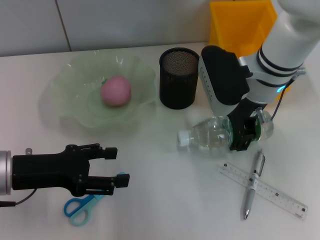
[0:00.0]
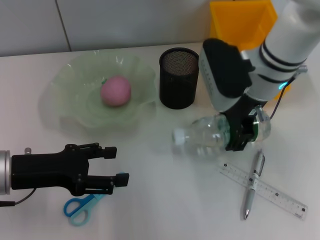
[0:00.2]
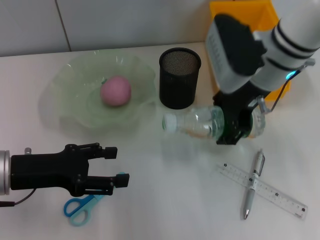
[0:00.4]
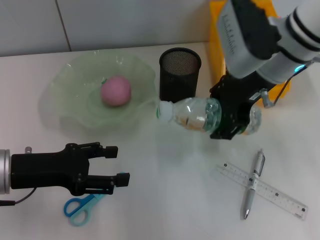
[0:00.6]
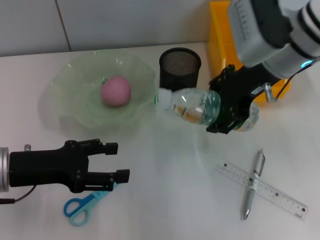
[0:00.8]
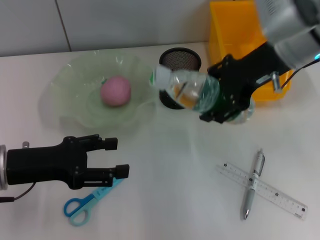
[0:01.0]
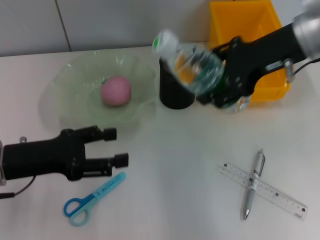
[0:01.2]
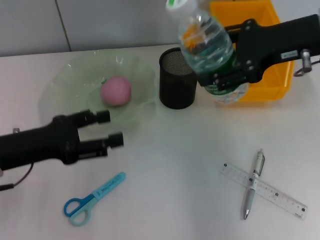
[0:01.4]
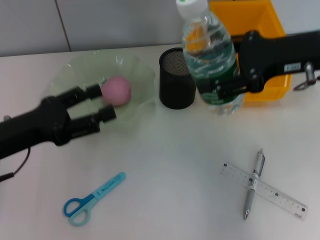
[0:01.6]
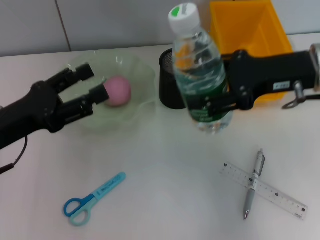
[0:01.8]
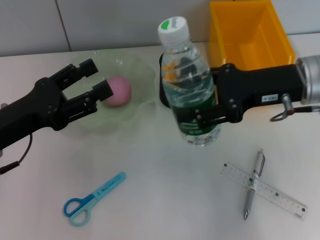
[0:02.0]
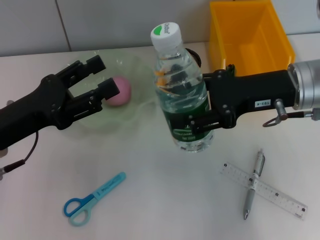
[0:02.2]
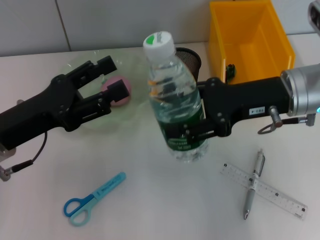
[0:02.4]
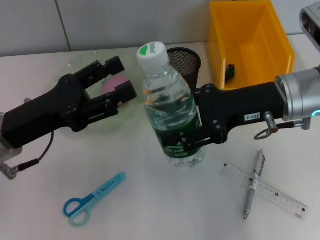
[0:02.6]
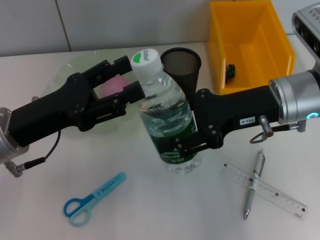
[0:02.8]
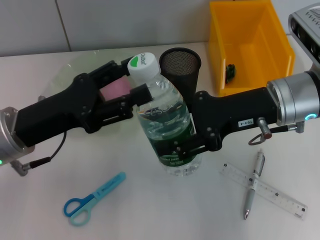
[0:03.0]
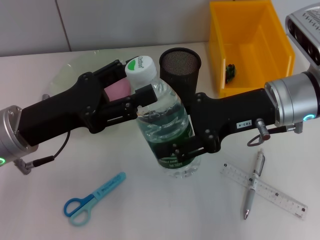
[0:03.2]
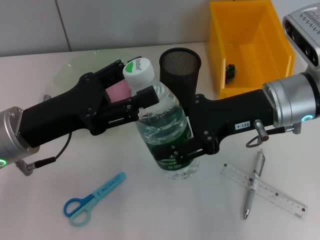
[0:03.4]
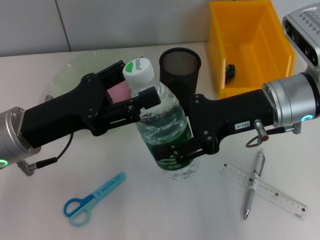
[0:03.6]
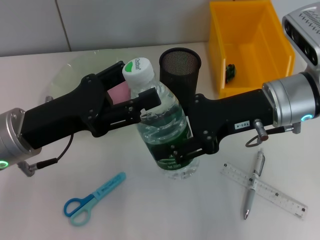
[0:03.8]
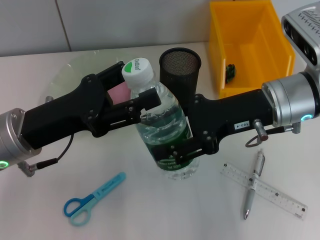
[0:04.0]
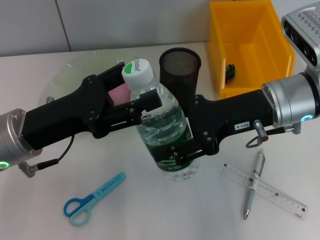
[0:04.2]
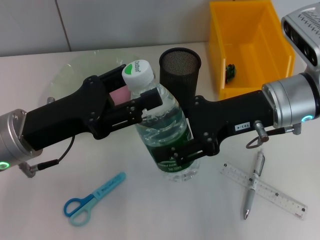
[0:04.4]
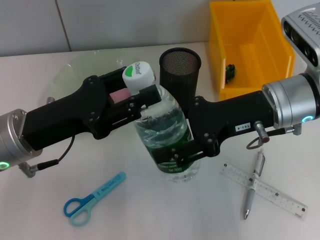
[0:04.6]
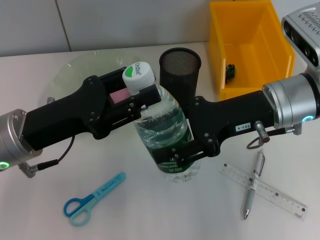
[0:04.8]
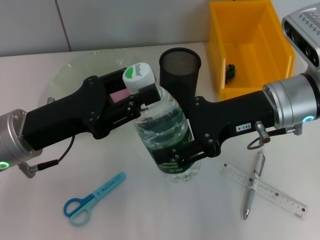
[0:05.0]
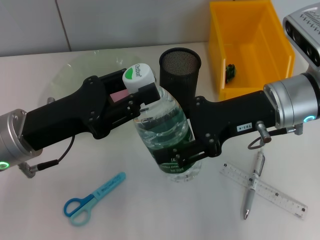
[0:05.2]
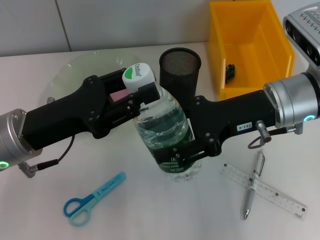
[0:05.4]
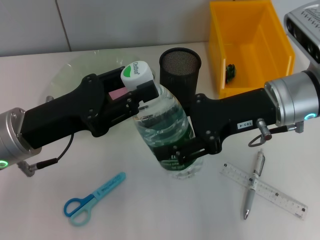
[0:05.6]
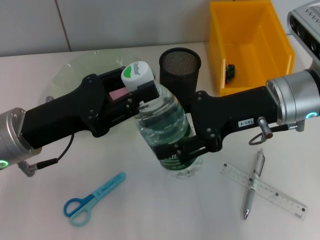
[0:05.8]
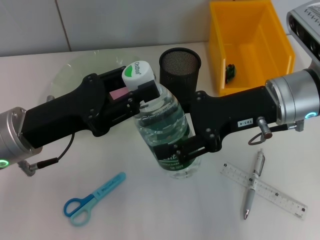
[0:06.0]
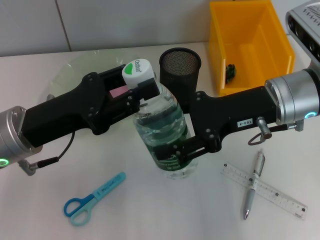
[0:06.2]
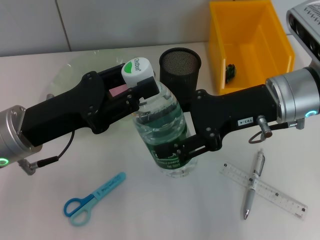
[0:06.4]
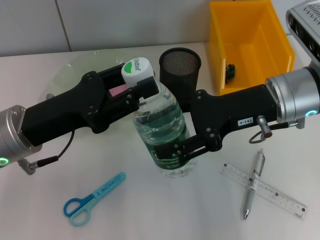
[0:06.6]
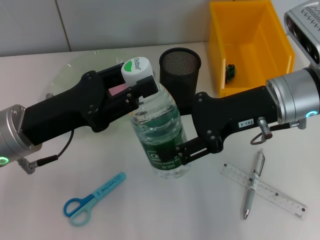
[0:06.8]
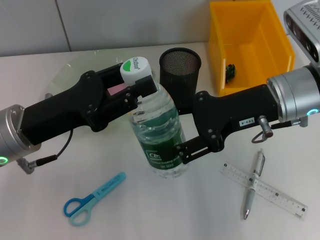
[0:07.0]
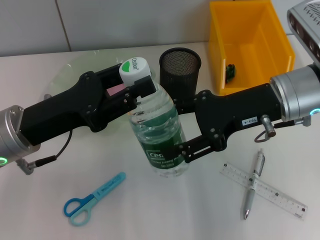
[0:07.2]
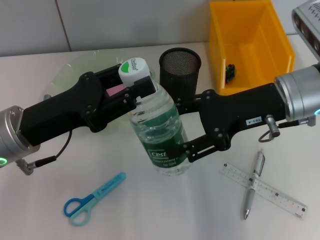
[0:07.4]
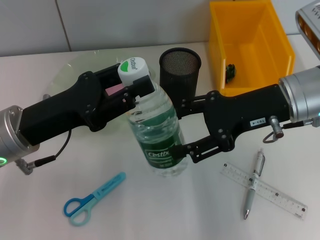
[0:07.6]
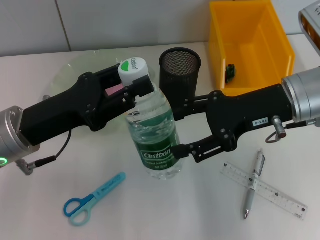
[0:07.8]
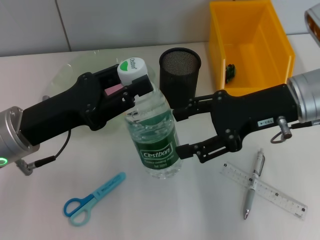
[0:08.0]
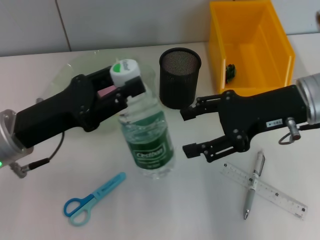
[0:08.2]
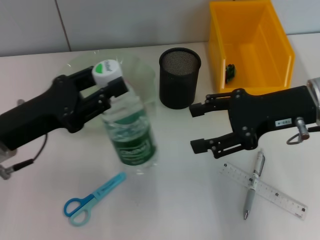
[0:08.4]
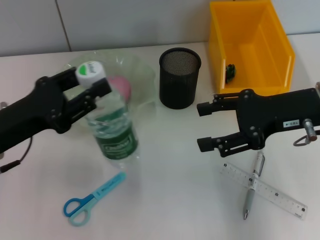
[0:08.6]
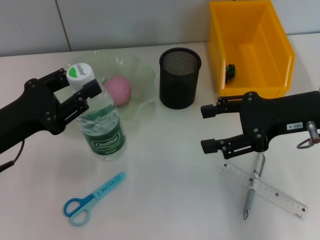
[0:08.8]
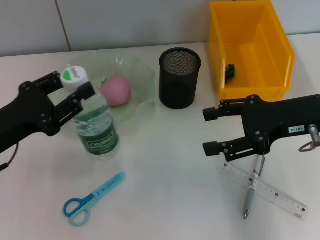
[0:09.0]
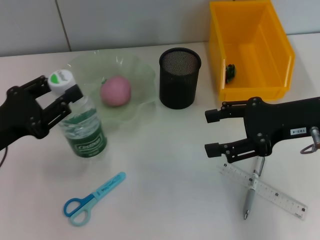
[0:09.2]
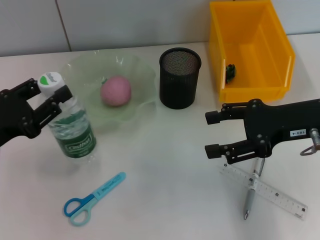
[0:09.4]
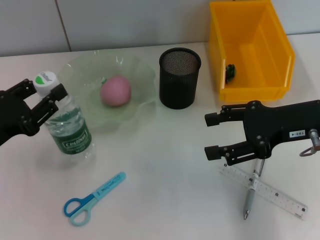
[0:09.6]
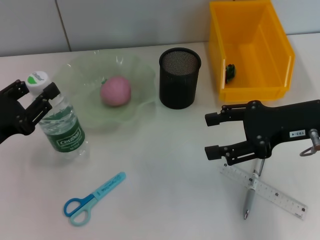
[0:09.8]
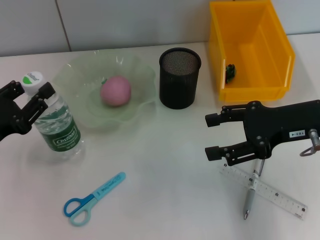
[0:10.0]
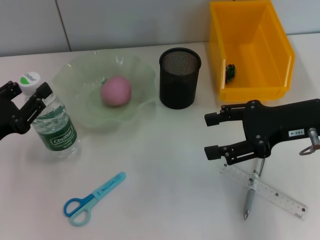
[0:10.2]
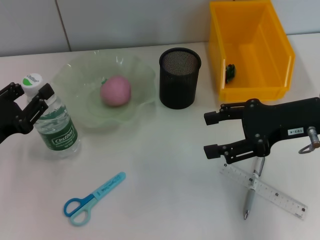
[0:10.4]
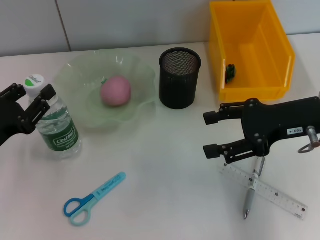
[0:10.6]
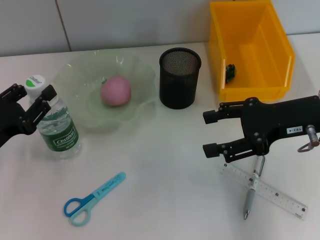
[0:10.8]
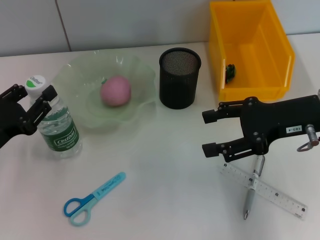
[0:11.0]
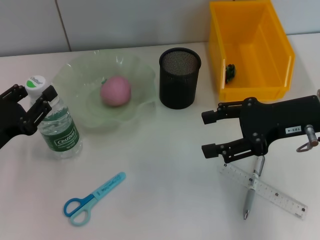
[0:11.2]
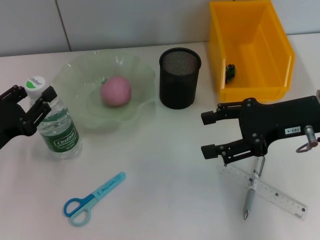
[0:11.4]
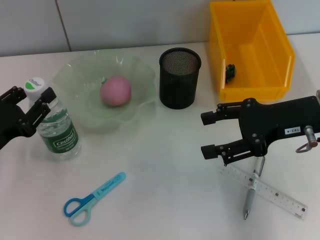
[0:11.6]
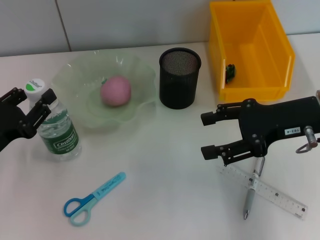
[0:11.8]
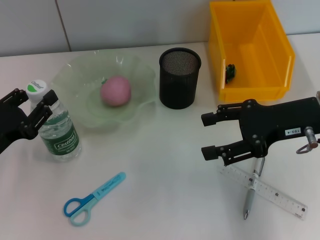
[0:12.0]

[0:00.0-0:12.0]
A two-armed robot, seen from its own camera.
Step, 0:00.0 to 0:08.0: Pass the water bottle from the right hand to the left hand.
0:00.0 to 0:01.6: The right gripper shifts about 15 cm to the right, upward and backward.
0:01.6 to 0:03.0: The right gripper travels to the left and downward by roughly 10 cm.
0:03.0 to 0:04.4: Both grippers stay about where they are.
0:04.4 to 0:06.0: The left gripper closes its fingers.
0:06.0 to 0:07.6: There are only small adjustments of the grippers.
0:07.6 to 0:09.0: The left gripper travels to the left by about 5 cm, while the right gripper ends up approximately 5 cm from where it was.
0:10.4 to 0:12.0: Both grippers stay about where they are.

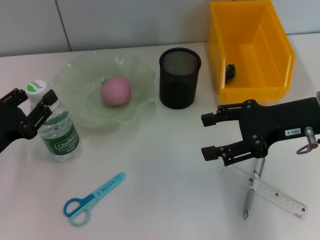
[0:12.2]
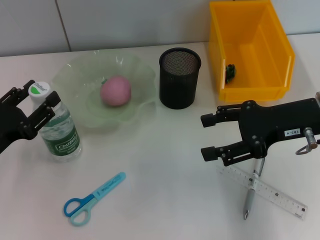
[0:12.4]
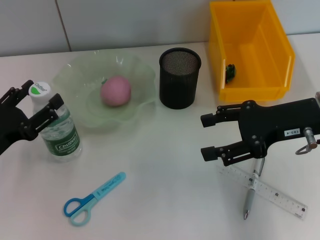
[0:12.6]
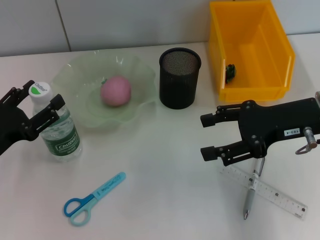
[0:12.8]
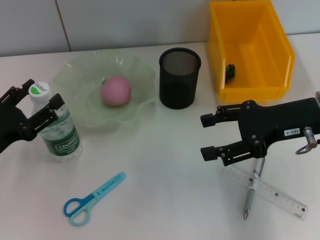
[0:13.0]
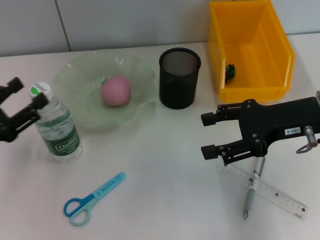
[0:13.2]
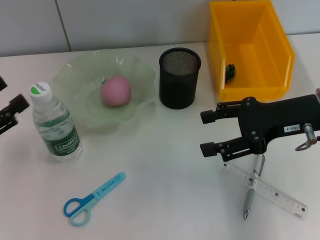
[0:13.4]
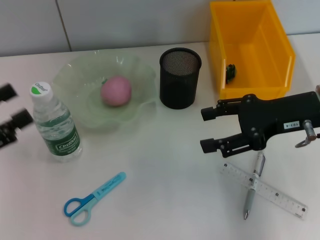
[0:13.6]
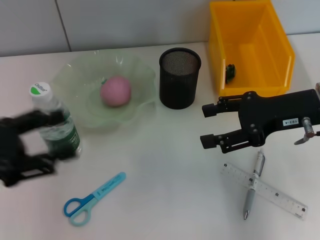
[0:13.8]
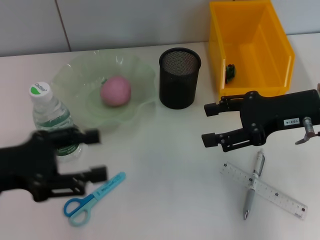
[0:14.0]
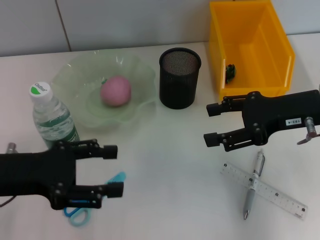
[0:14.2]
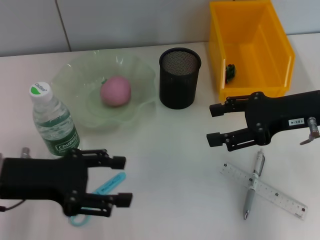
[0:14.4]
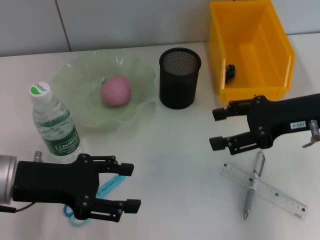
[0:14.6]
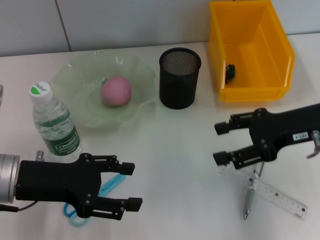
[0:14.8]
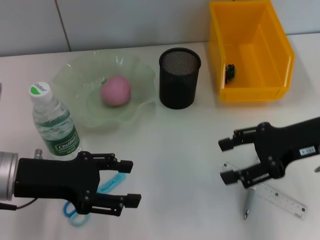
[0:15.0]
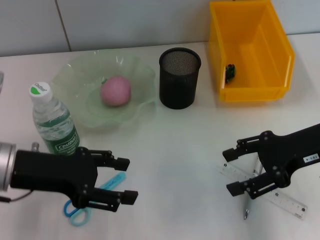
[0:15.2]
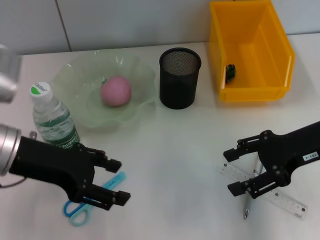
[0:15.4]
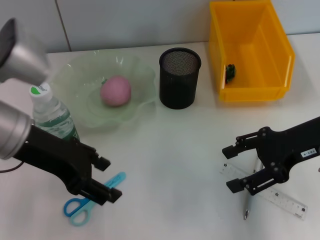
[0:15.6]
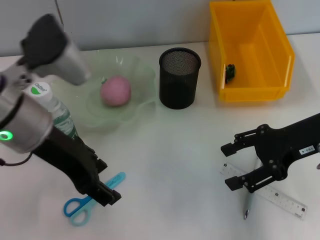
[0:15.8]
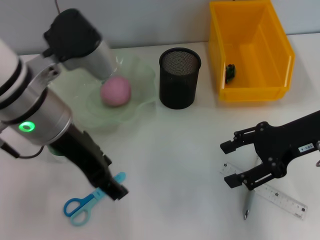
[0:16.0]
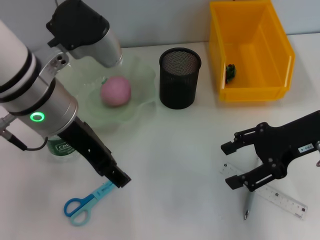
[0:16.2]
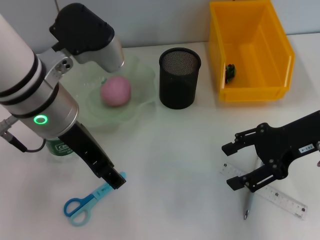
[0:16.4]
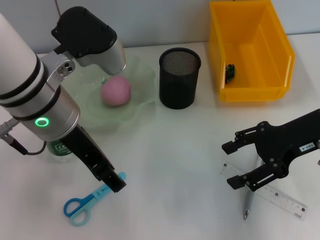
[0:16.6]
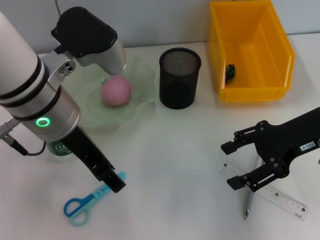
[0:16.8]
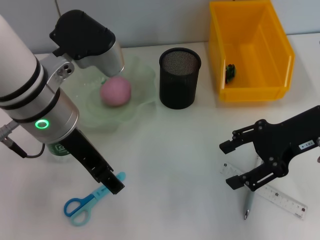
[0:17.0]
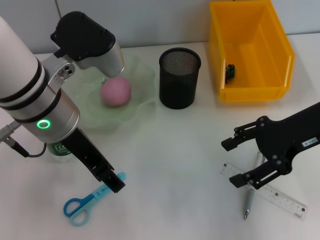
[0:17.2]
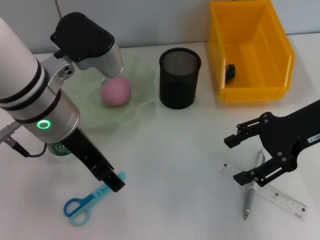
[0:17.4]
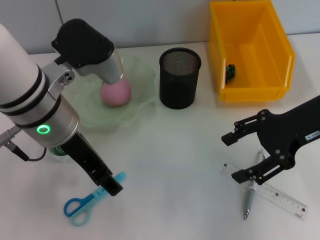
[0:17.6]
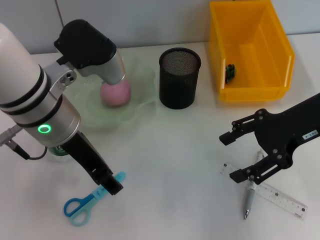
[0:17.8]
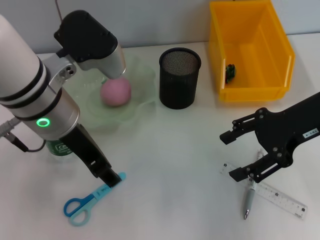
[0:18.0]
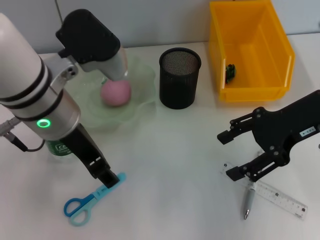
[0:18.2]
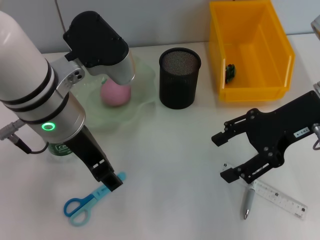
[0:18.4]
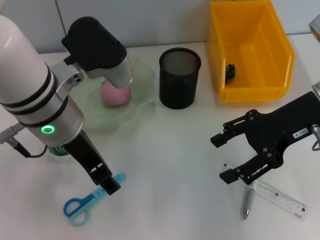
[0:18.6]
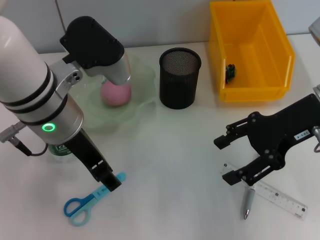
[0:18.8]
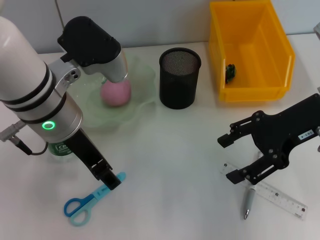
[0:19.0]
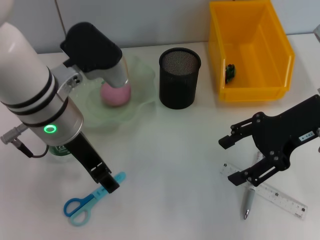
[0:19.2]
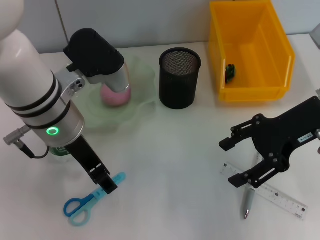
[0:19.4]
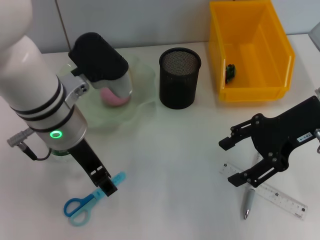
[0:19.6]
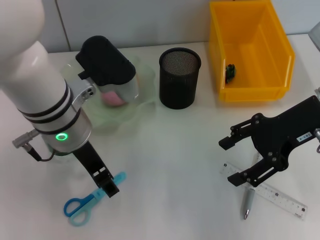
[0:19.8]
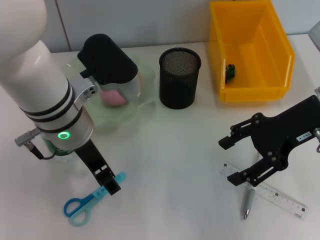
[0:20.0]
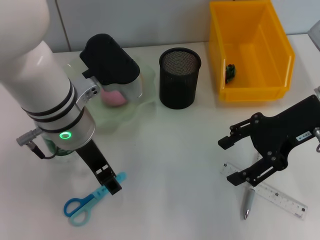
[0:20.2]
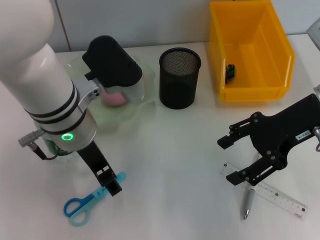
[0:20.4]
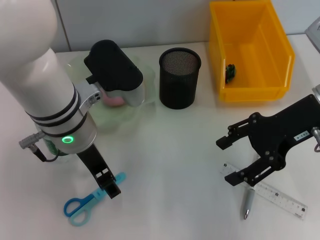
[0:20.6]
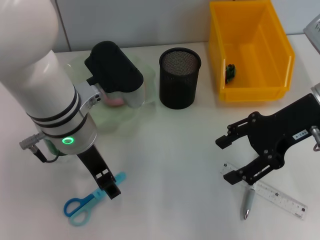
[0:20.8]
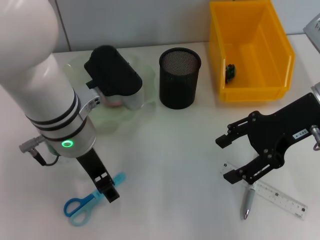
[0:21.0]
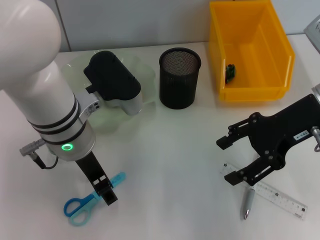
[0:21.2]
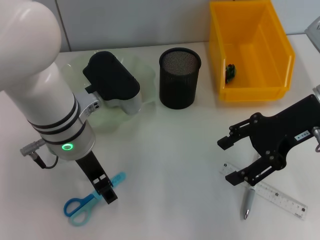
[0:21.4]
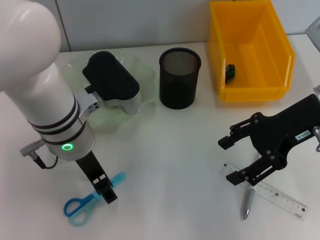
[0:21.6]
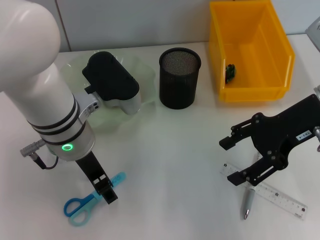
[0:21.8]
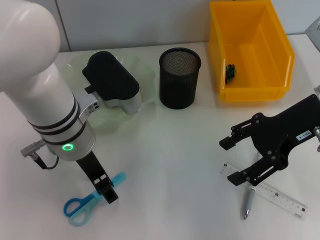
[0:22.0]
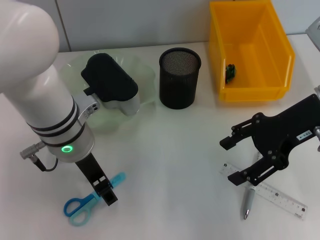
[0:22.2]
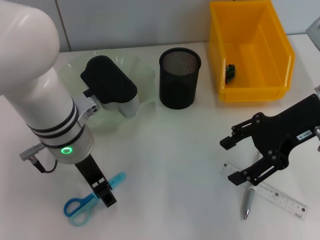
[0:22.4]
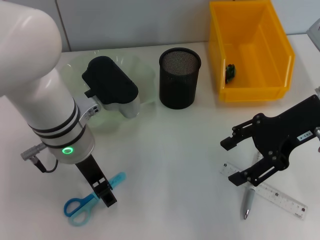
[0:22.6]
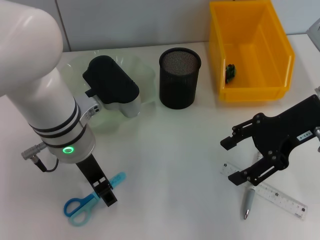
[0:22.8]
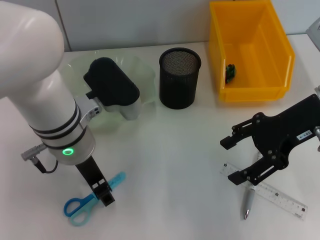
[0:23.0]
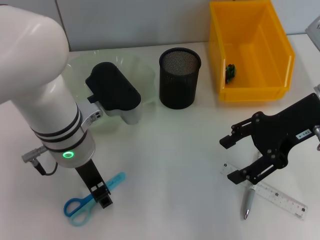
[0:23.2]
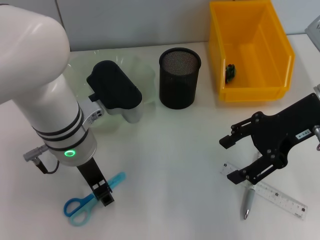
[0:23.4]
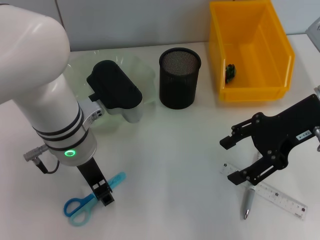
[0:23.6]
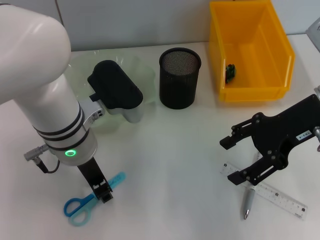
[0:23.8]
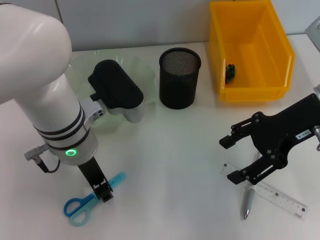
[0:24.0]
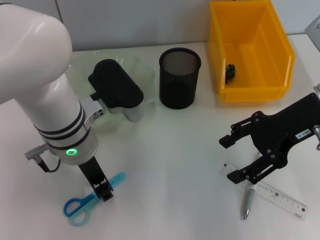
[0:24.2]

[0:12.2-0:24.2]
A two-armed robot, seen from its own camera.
0:12.2 to 0:13.8: The left gripper travels upward by approximately 10 cm, and opens.
0:13.8 to 0:15.2: The left gripper travels to the right by approximately 10 cm.
0:15.2 to 0:16.6: The left gripper moves to the right and upward, roughly 15 cm.
0:16.6 to 0:19.8: The grippers make only small movements.
0:19.8 to 0:21.2: The grippers move only a little.
0:21.2 to 0:24.2: Neither gripper changes place.
